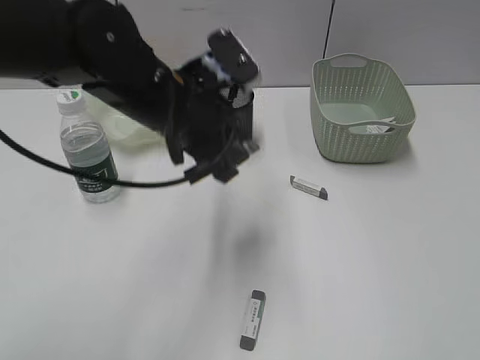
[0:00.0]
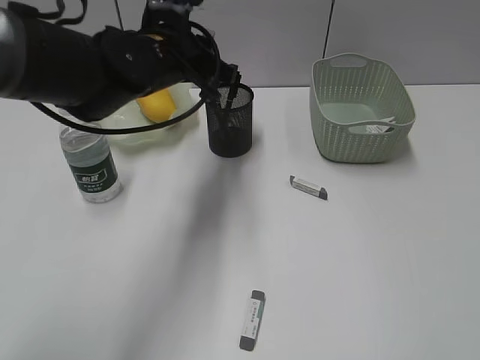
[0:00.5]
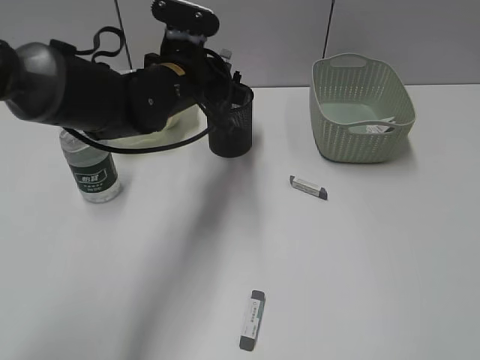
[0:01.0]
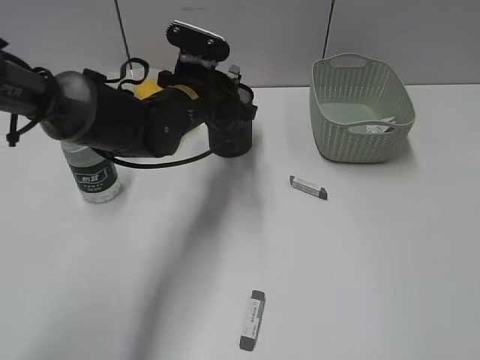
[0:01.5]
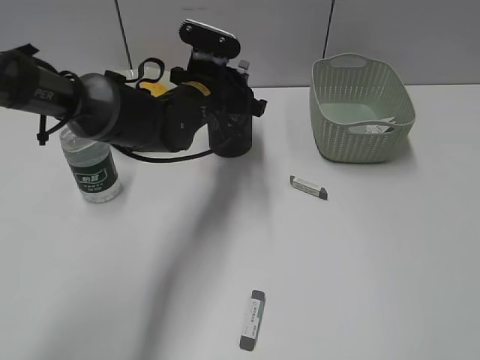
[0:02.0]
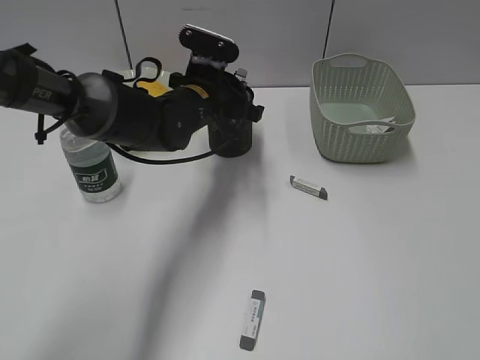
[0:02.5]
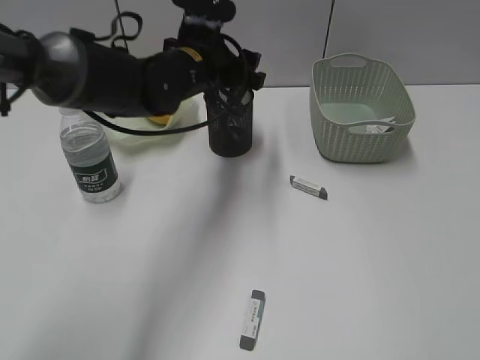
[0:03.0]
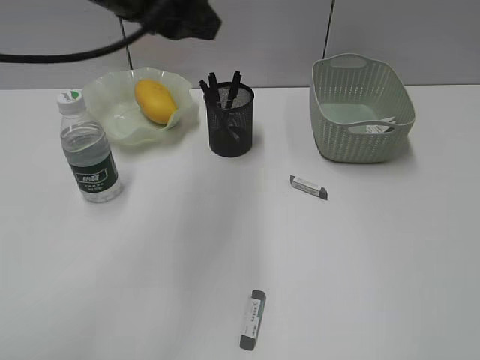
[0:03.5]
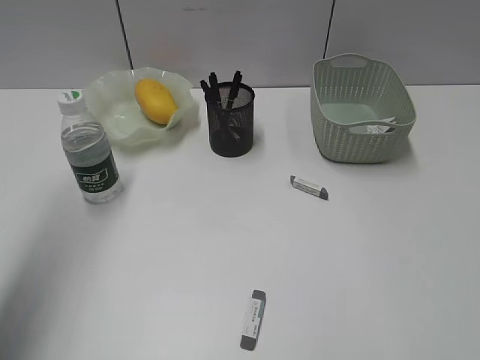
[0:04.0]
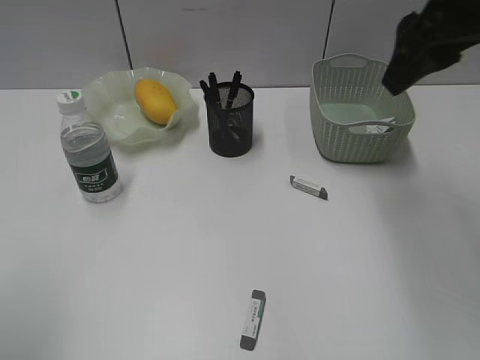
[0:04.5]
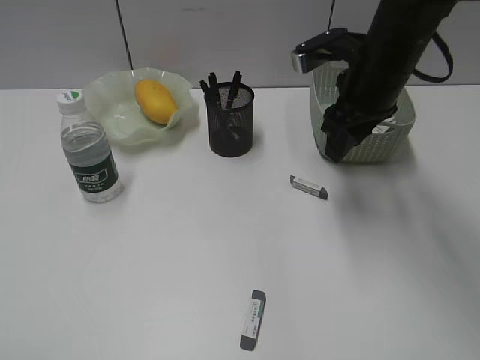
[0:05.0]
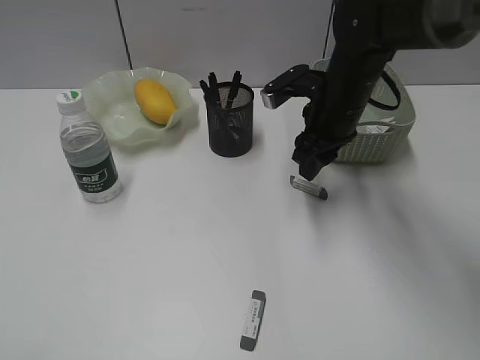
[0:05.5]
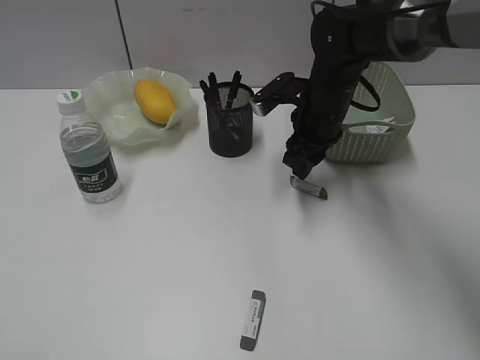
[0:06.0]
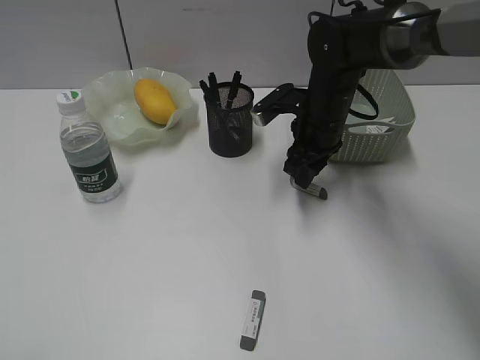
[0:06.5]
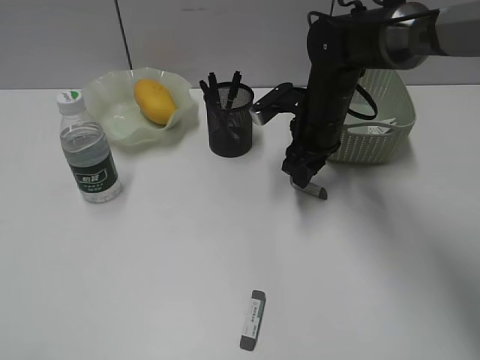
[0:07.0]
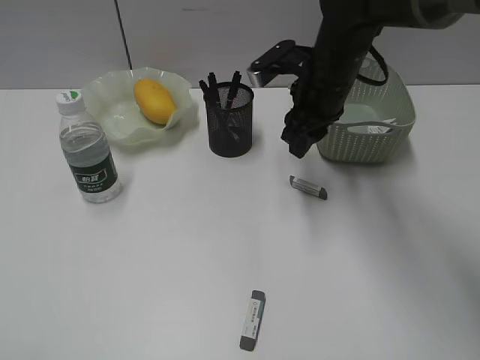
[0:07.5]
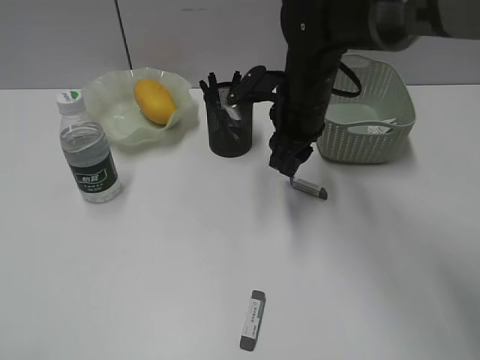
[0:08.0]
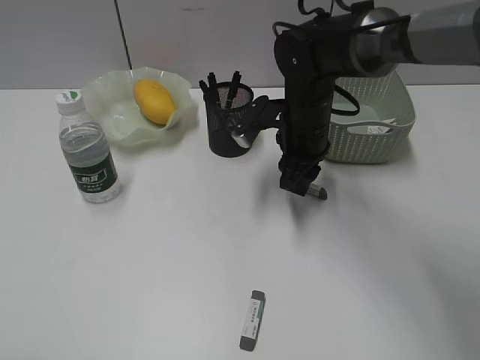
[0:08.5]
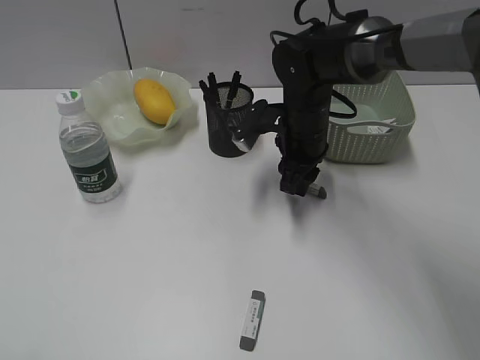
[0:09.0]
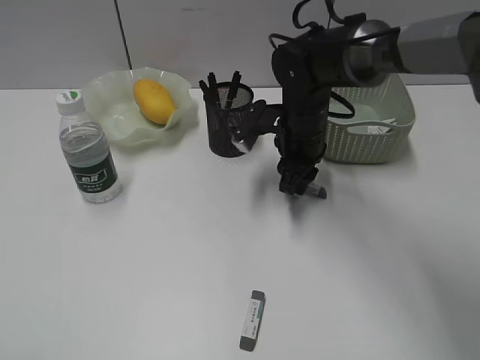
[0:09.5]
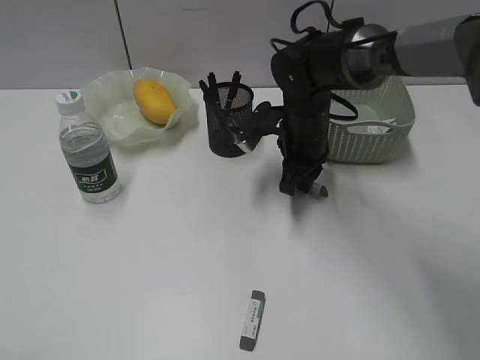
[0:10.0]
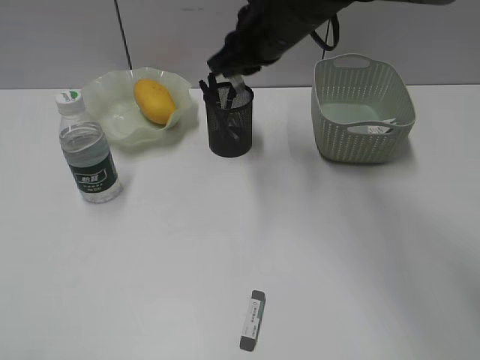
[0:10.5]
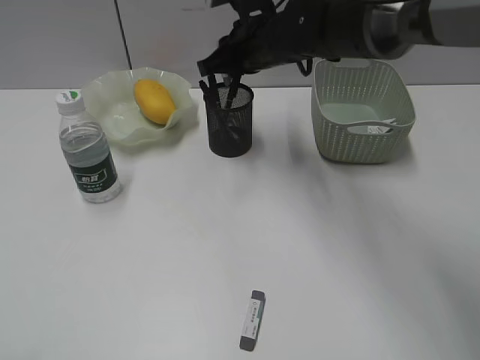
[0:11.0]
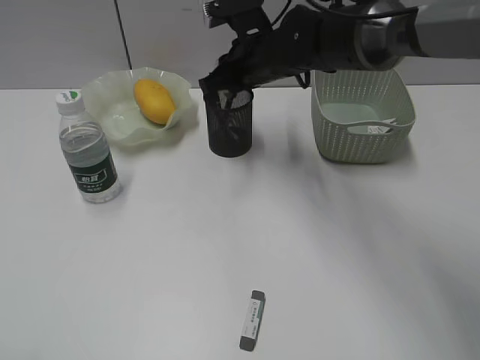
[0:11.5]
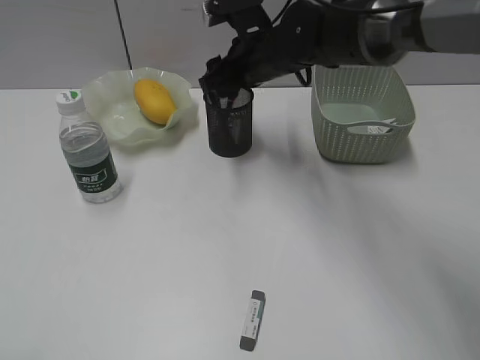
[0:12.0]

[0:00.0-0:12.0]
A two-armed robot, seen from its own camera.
Step, 0:00.0 to 0:02.5: Place the eraser in pen holder with left gripper.
Step, 0:03.0 to 0:09.5: Grasp the eraser with right gripper.
Step, 0:10.0 to 0:12.0: Place the eraser in pen holder with right gripper.
0:00.0 to 0:02.0: The left gripper goes approximately 15 cm forward and downward.
0:02.0 to 0:04.0: The right gripper is displaced forward by approximately 15 cm; the left gripper goes roughly 35 cm to the left, upward and backward, and opens its fingers.
0:04.0 to 0:06.0: The right gripper goes some 35 cm forward, downward and to the left; the left gripper shifts approximately 25 cm backward.
0:06.0 to 0:08.0: The grippers move only a little.
0:08.0 to 0:10.0: The right gripper closes.
0:10.0 to 0:12.0: The right gripper travels upward by approximately 10 cm, and opens.

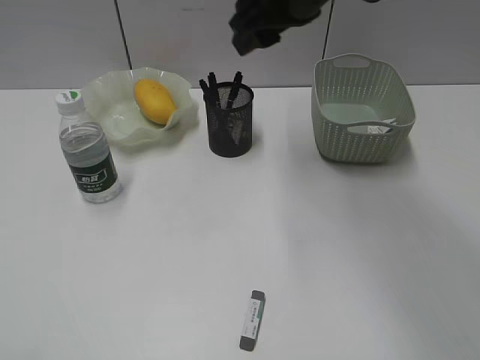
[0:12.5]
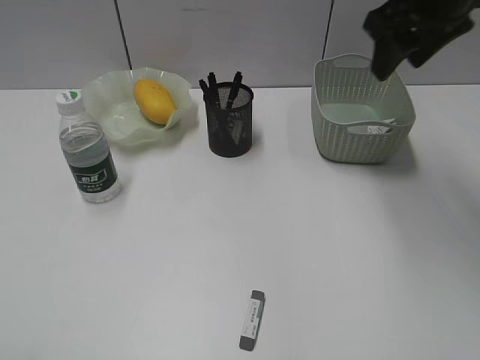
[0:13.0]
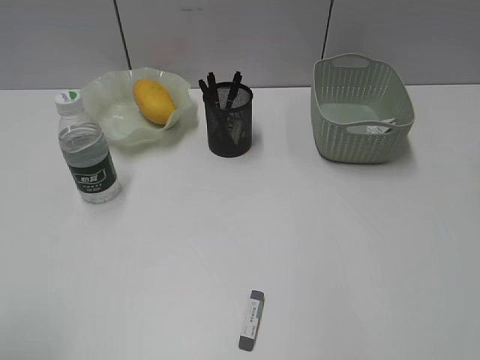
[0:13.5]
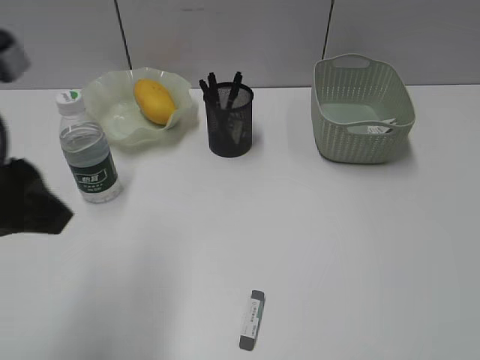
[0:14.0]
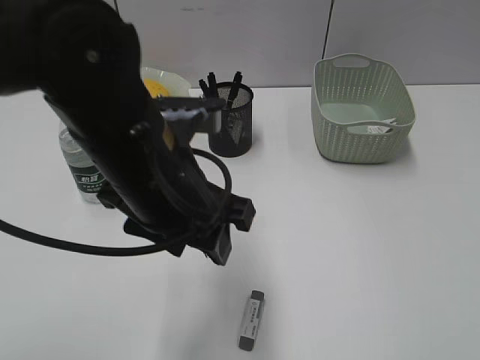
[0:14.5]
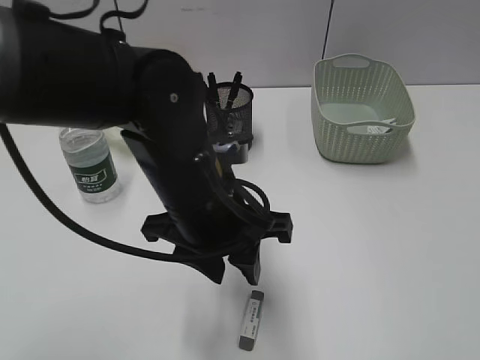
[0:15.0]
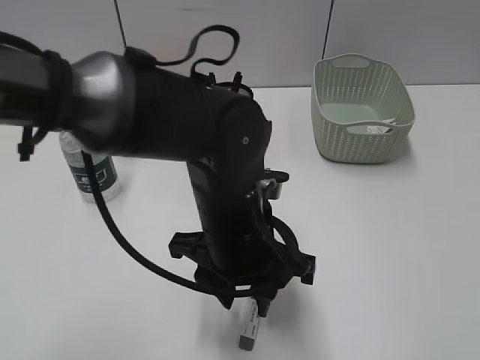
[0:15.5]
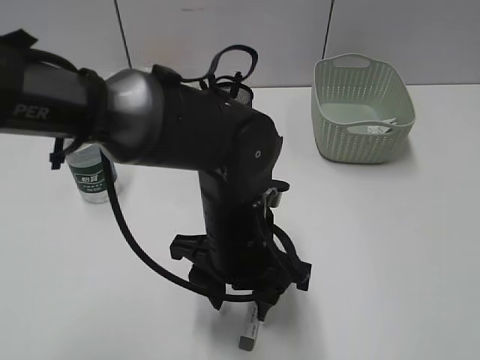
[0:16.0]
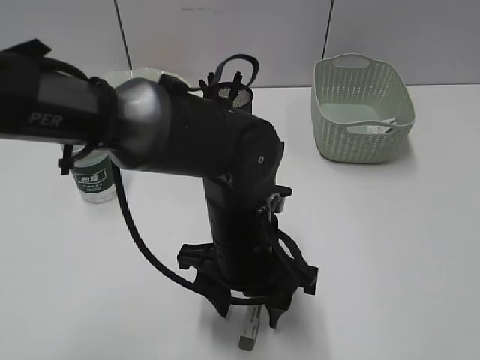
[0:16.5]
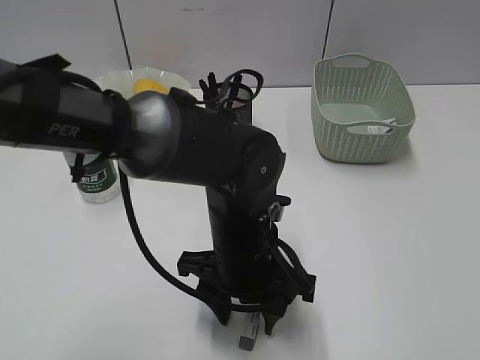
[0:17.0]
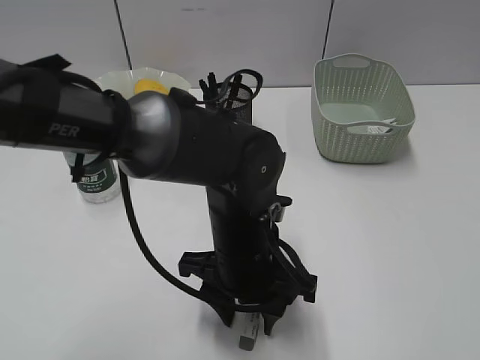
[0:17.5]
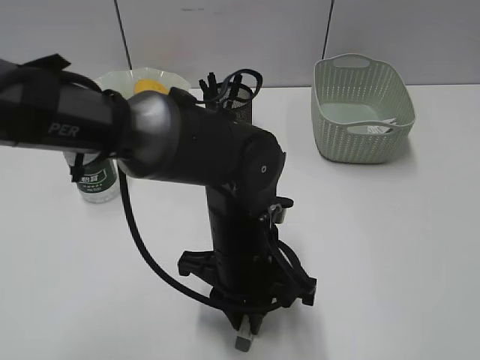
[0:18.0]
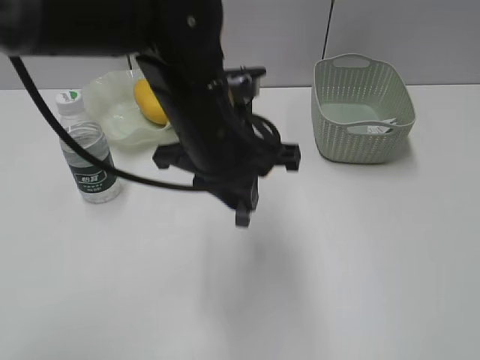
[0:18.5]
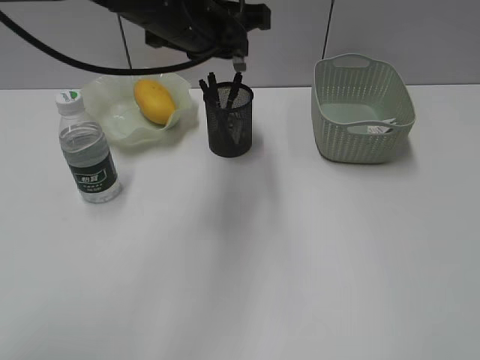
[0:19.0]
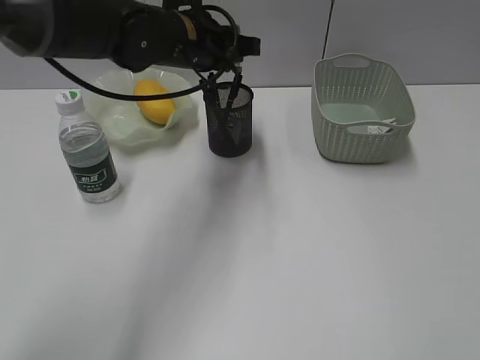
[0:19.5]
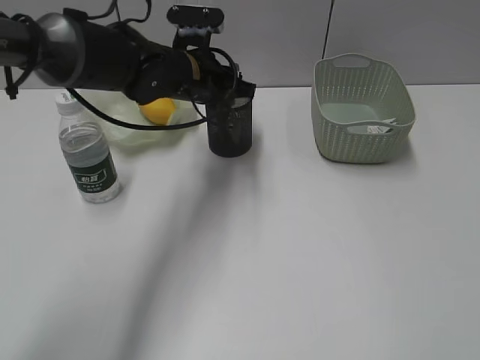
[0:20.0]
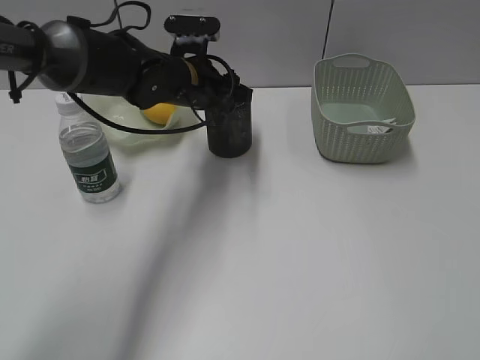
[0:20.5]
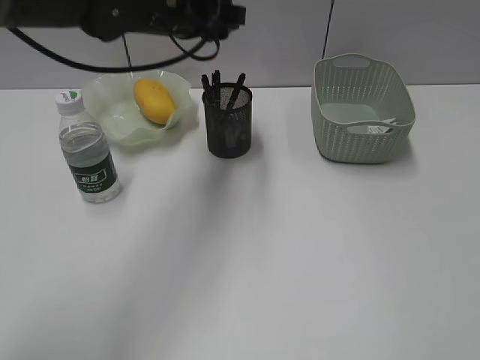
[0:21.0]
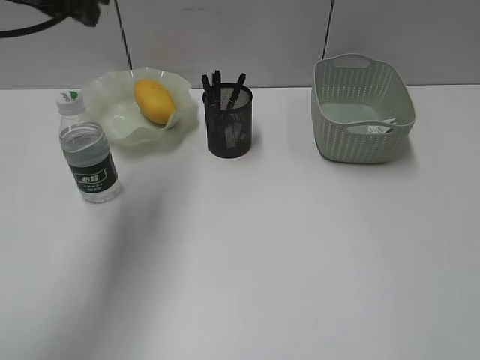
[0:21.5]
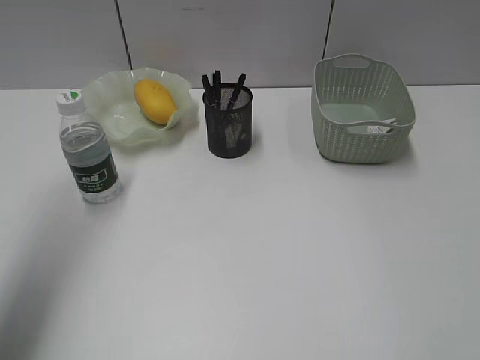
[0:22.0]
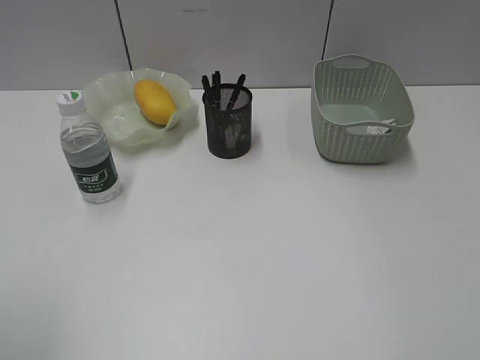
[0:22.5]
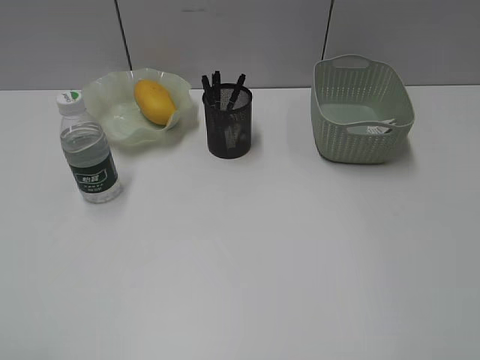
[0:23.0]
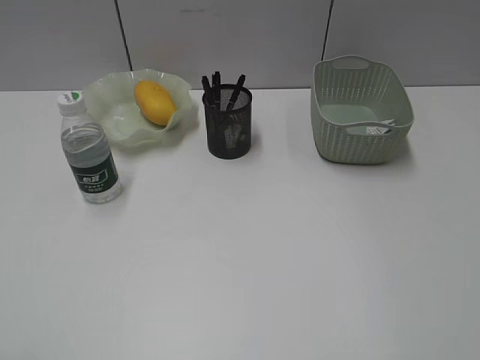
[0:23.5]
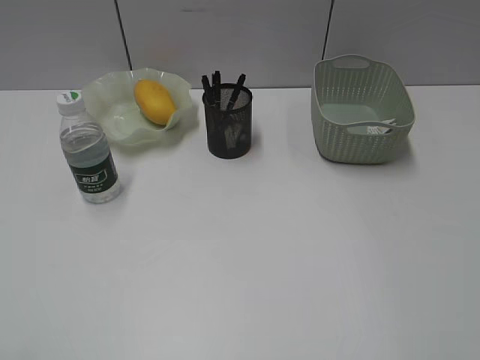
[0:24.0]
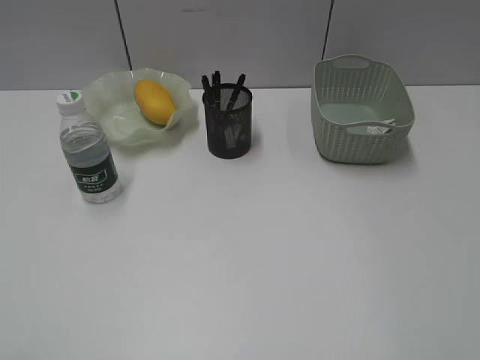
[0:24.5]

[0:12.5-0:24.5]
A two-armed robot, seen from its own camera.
Step, 0:12.5 to 0:17.5: Grasp the eraser with left gripper.
Step, 0:18.0 to 0:20.5: Place the eraser in pen holder with left gripper.
0:12.5 to 0:14.5: The right gripper goes approximately 40 cm backward and to the right. The left gripper heads to the right and forward, covering about 35 cm.
0:14.5 to 0:16.5: The right gripper ends up some 5 cm from where it was. The left gripper moves downward and to the right, approximately 10 cm.
0:16.5 to 0:18.5: The left gripper goes roughly 10 cm upward, and closes.
0:18.5 to 0:20.5: The left gripper moves forward, roughly 15 cm, and opens its fingers.
0:20.5 to 0:22.5: The left gripper goes some 50 cm backward, to the left and upward.
